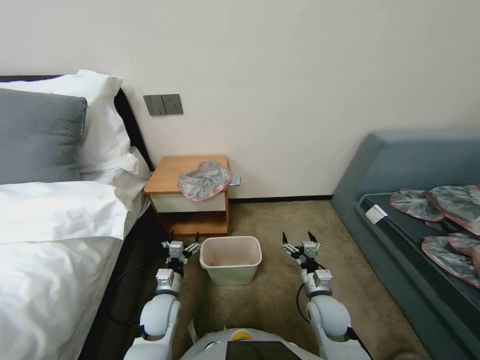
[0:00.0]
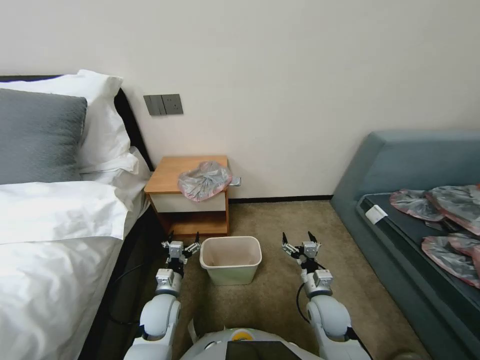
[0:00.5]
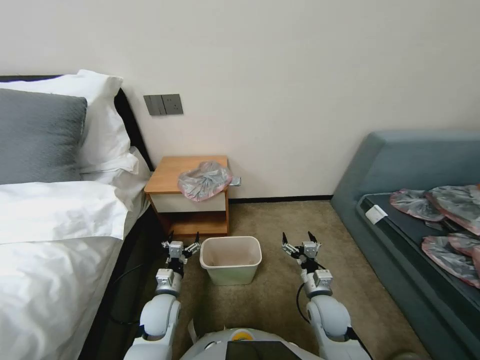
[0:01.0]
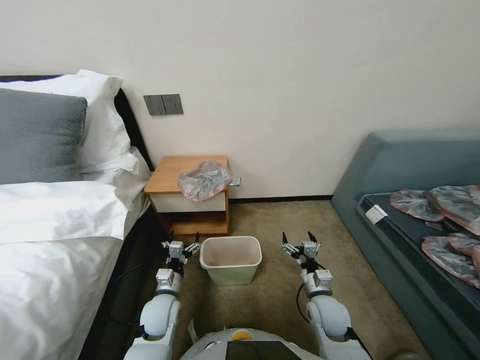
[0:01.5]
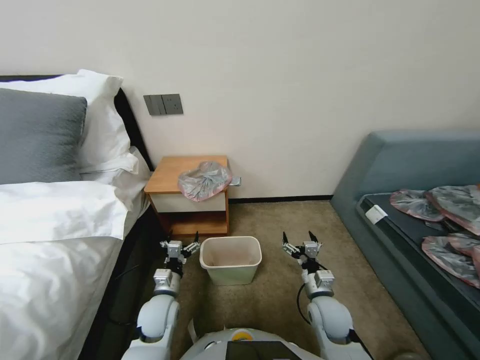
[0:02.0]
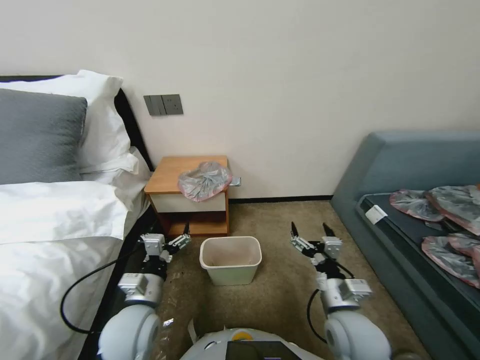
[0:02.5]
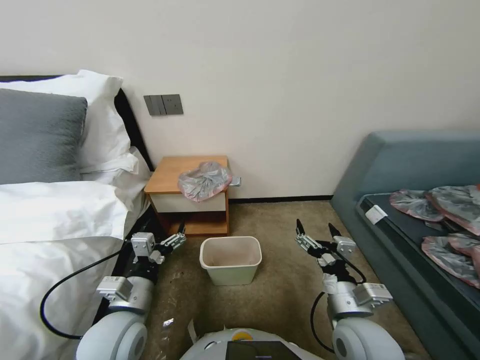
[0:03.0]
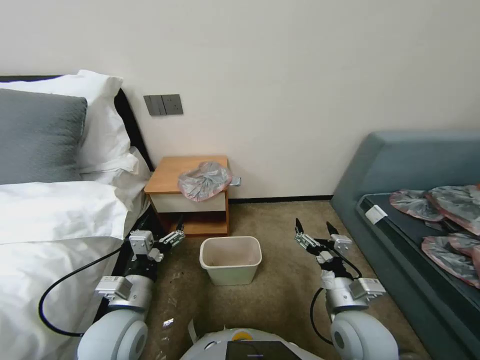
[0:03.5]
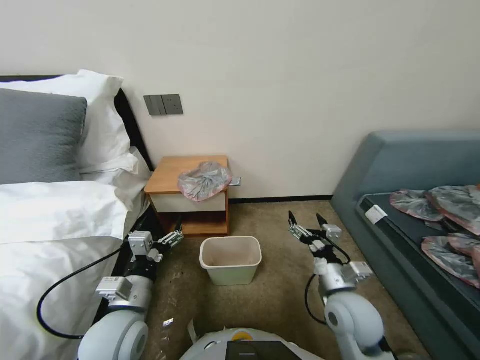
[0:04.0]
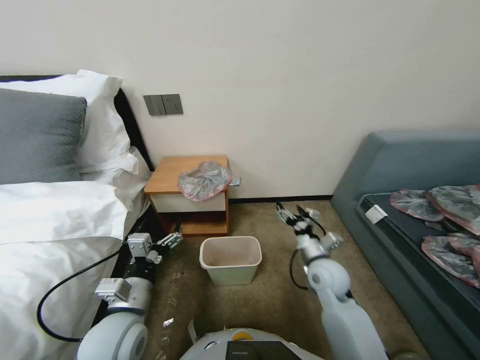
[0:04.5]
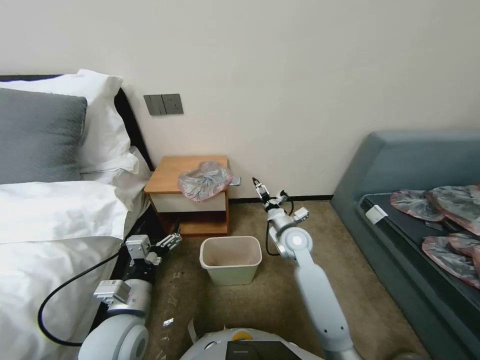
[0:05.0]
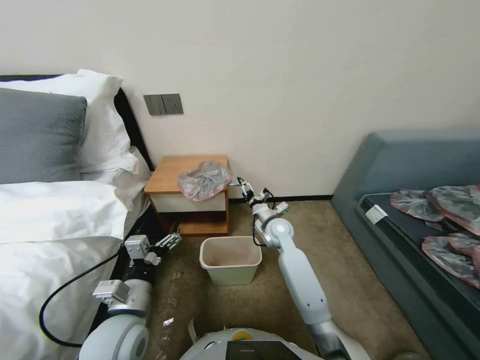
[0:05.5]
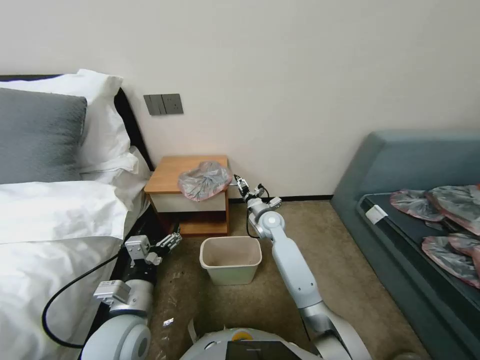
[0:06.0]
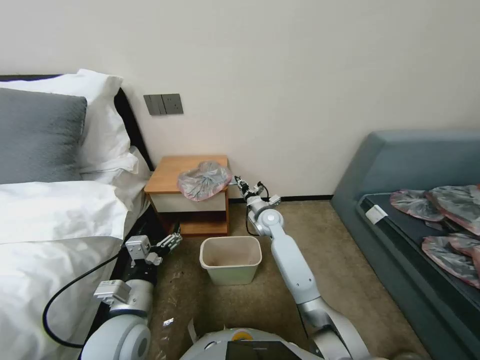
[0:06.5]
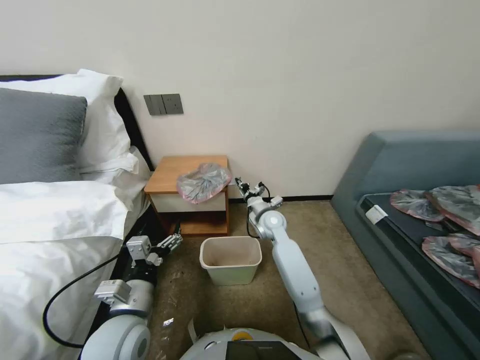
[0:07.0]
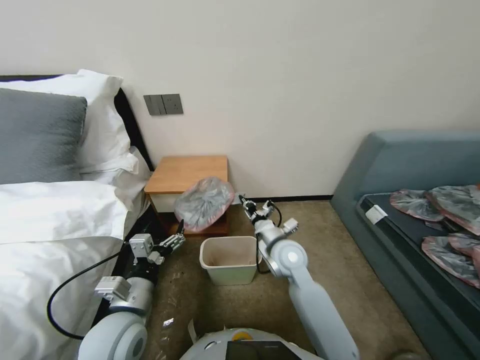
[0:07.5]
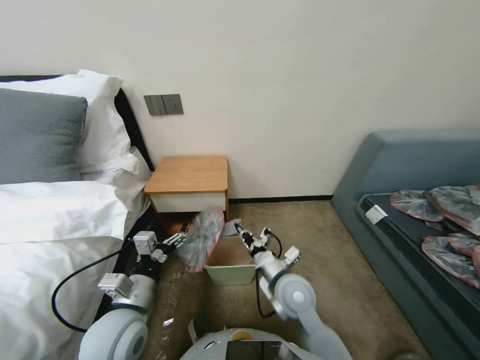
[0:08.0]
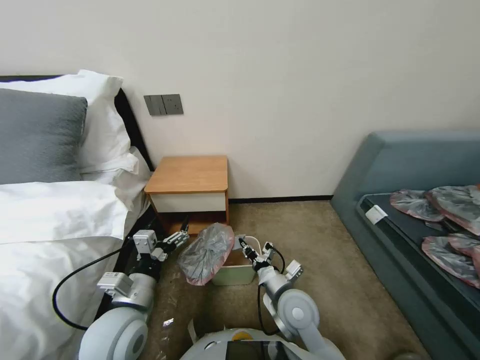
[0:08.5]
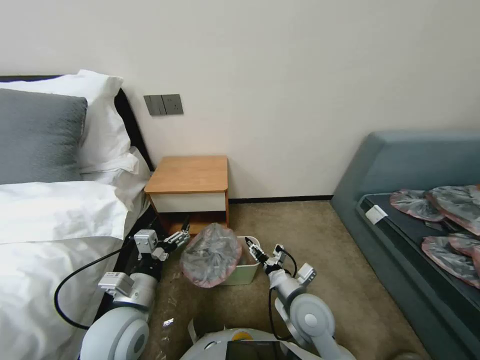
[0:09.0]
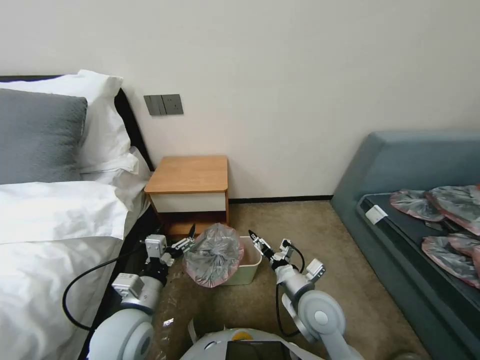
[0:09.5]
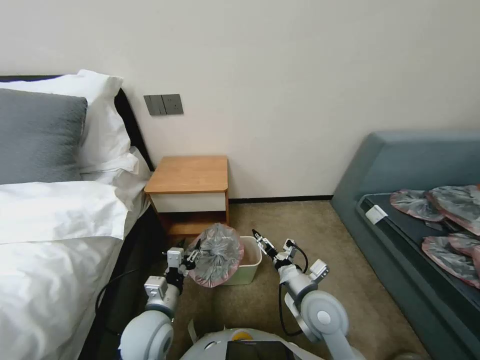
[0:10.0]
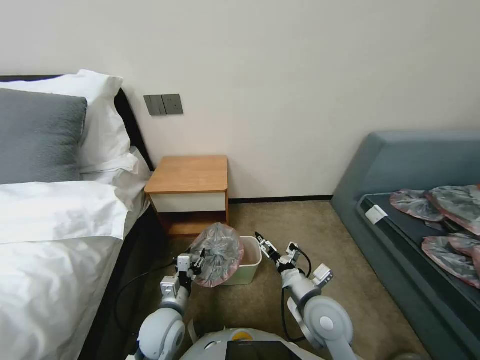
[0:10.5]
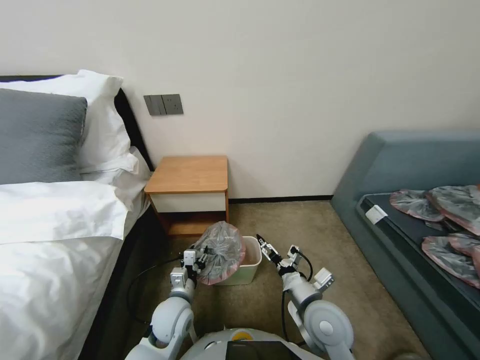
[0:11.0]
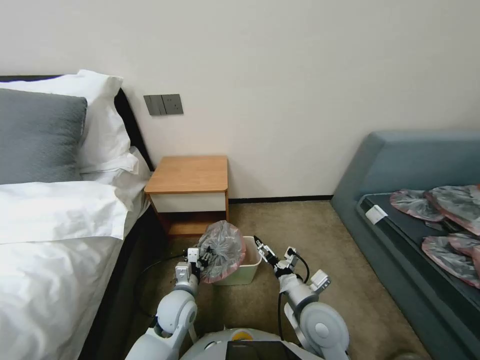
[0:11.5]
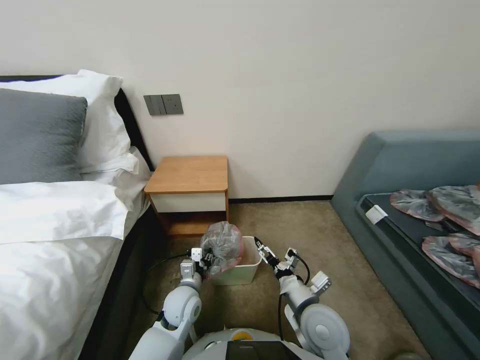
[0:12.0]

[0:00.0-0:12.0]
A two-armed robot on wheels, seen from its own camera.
Task of the whole recording: Pick up the garbage bag from the table and place it over the trash can.
0:02.0 to 0:04.0: The left gripper moves upward and backward, roughly 15 cm. Meanwhile the right gripper heads upward, covering approximately 10 cm.
0:04.0 to 0:06.0: The right gripper heads forward and to the left, covering about 30 cm.
0:06.0 to 0:08.0: The right gripper shifts some 20 cm backward, and closes.
0:08.0 to 0:10.0: The left gripper moves downward, about 5 cm, and closes up. Meanwhile the right gripper is displaced to the right by about 5 cm, and opens up.
0:10.0 to 0:12.0: The left gripper goes approximately 10 cm downward and forward.

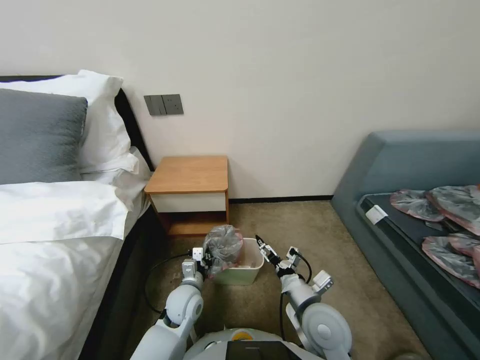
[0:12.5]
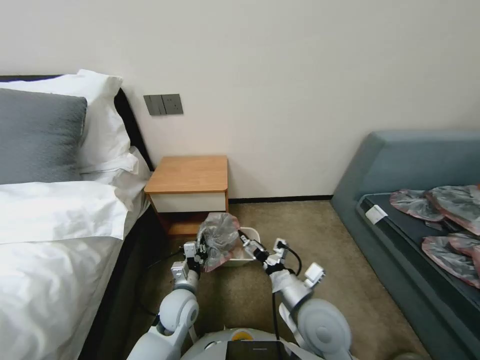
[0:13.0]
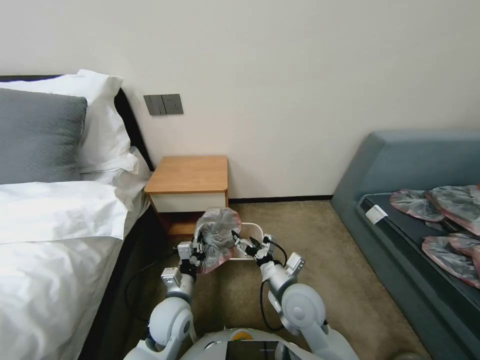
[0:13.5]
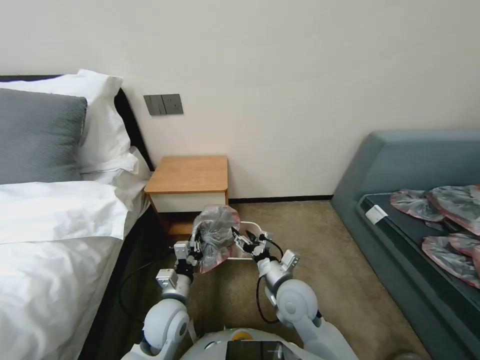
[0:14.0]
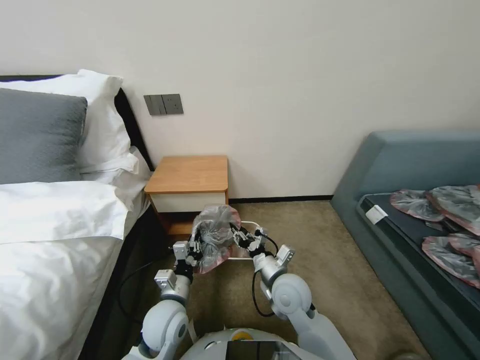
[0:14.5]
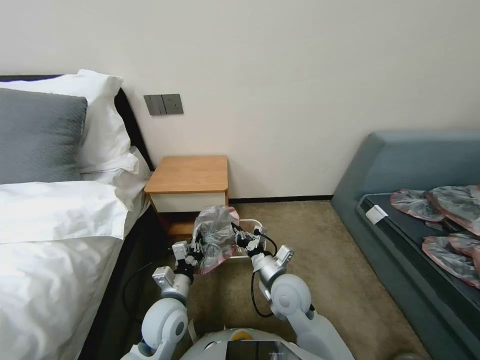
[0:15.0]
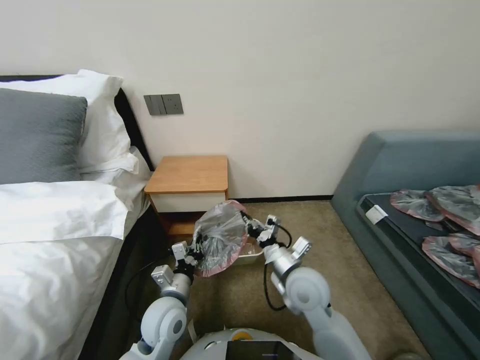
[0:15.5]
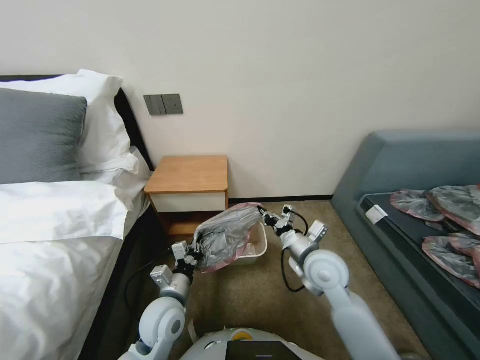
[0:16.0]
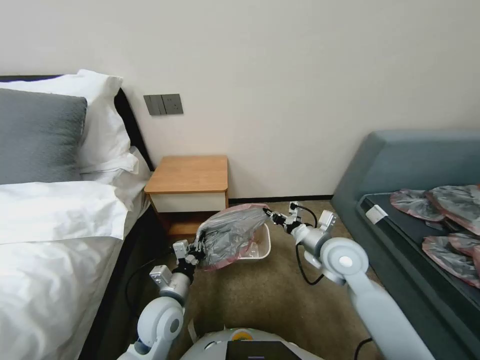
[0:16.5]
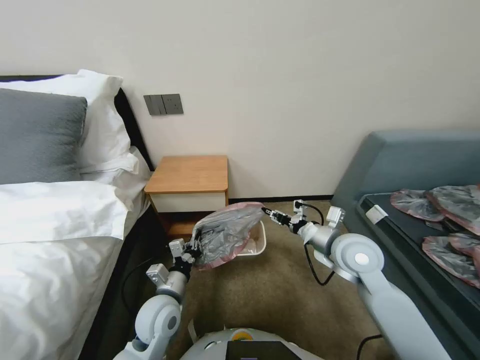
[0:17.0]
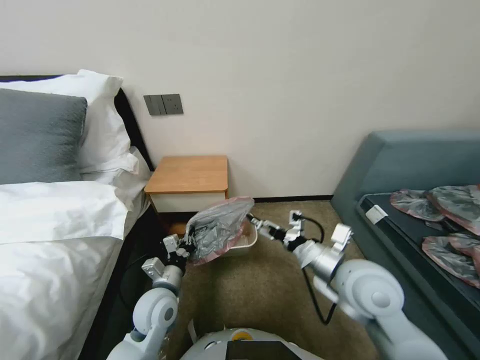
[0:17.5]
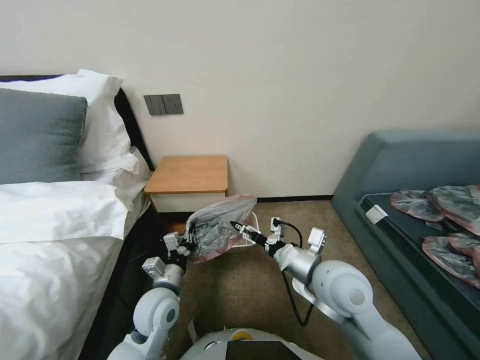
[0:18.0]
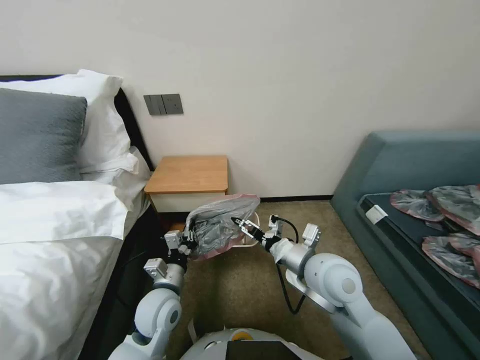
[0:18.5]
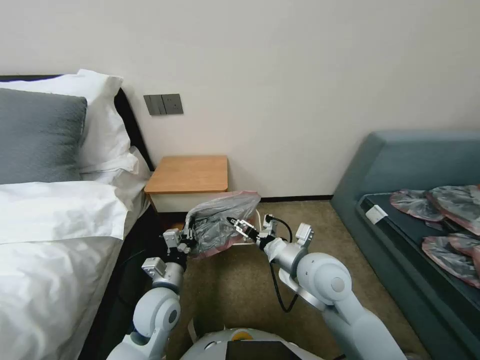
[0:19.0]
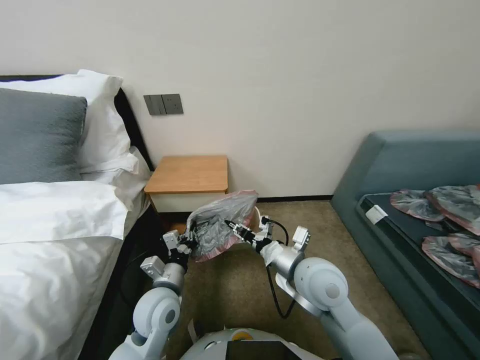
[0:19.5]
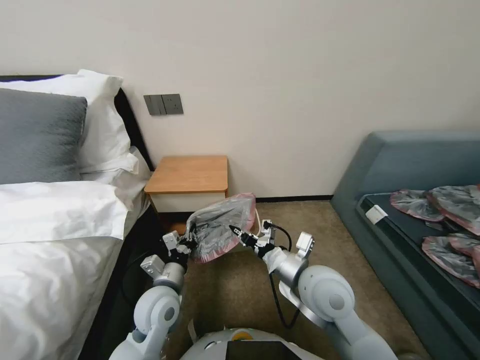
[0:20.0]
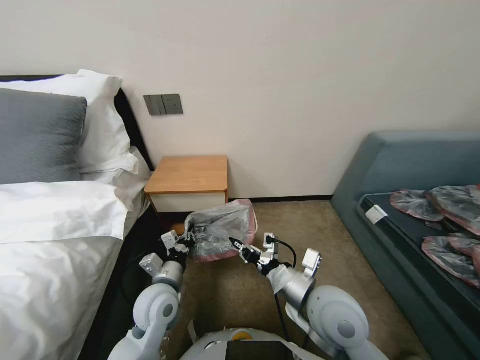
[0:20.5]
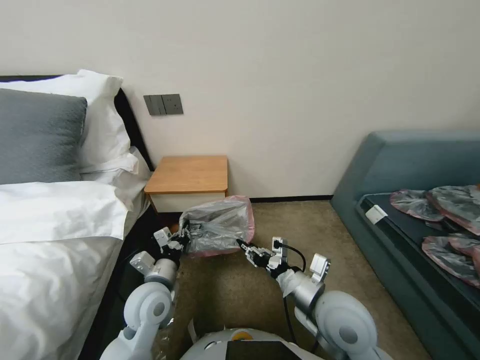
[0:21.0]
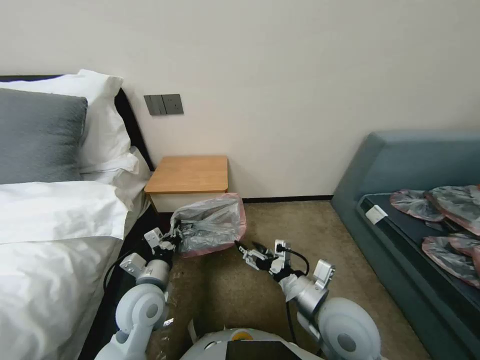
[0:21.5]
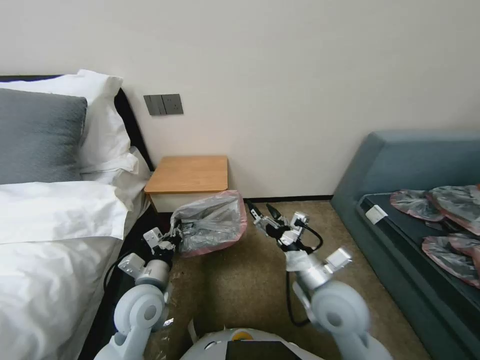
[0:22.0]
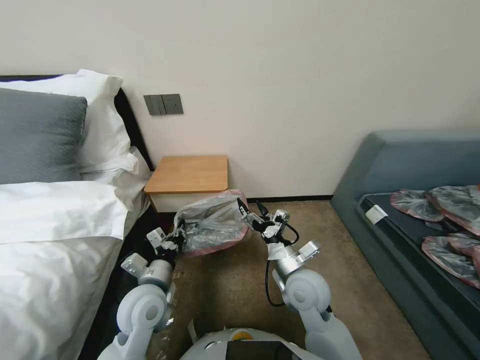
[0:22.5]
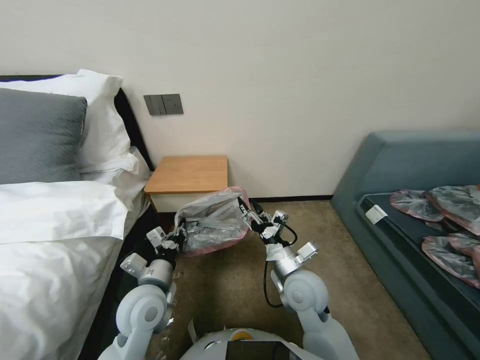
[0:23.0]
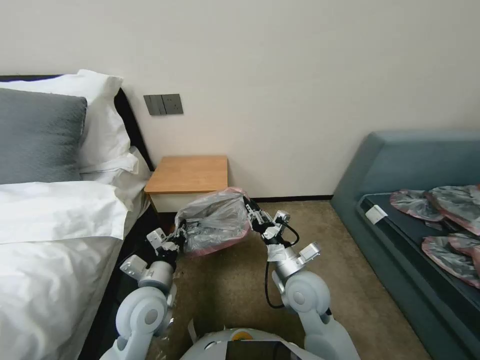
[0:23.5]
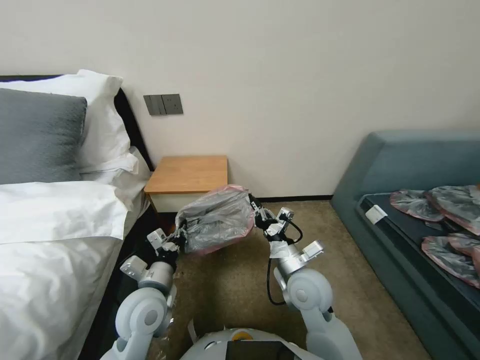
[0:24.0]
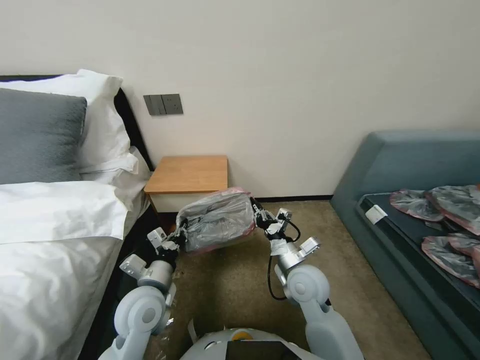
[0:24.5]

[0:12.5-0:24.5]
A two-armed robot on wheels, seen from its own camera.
Task of the whole recording: Pick up the garbage bag from the table and place it over the trash can.
0:12.5 to 0:14.5: The right gripper heads forward and to the left, covering some 10 cm, and closes its fingers, while the left gripper goes some 5 cm upward and backward.
0:14.5 to 0:16.5: The right gripper shifts approximately 15 cm to the right, upward and forward, and closes its fingers.
0:16.5 to 0:18.5: The right gripper is displaced to the left and backward by approximately 10 cm, and opens up.
0:18.5 to 0:20.5: The right gripper moves backward, some 5 cm, and closes its fingers.
0:20.5 to 0:22.5: The right gripper heads downward and forward, covering roughly 10 cm, and opens.
0:22.5 to 0:24.5: The right gripper closes up.

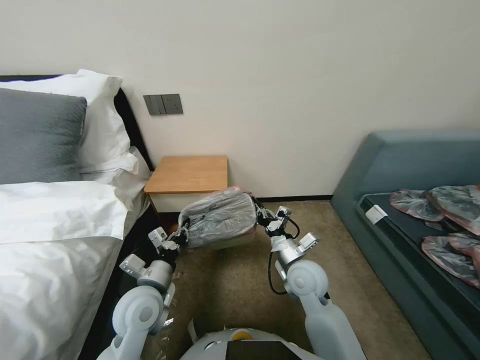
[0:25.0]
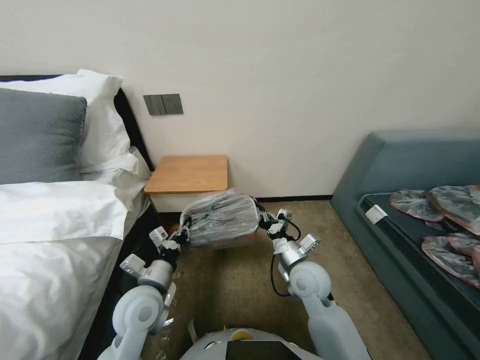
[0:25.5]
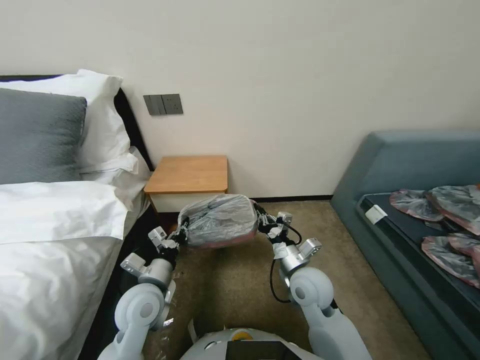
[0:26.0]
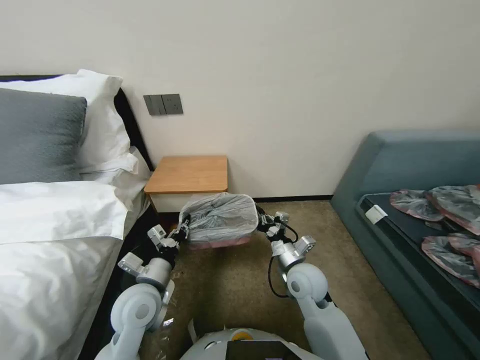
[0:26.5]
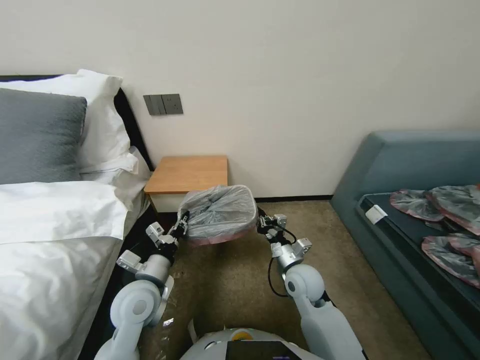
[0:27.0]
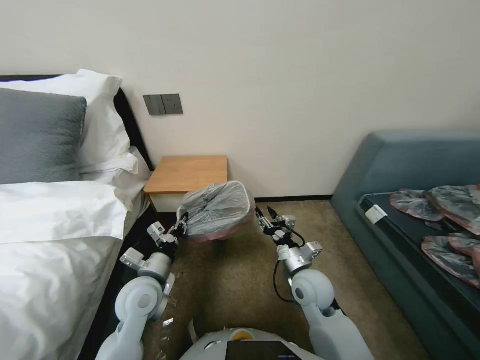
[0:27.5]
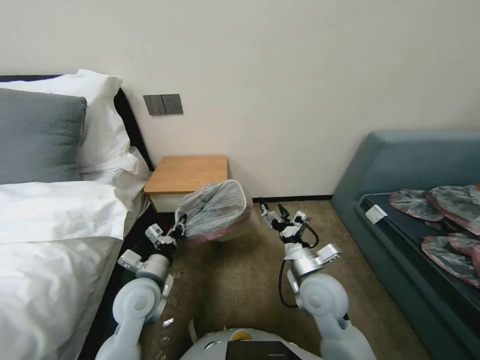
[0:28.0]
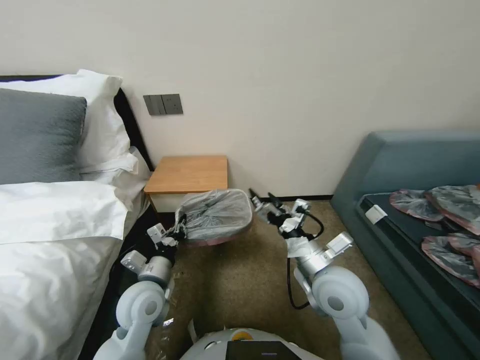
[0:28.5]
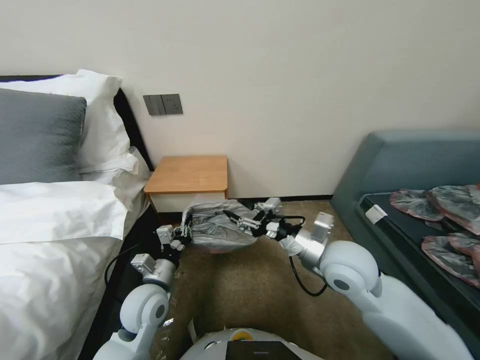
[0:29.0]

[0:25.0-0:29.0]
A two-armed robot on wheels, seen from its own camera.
Task of the whole recording: Pick up the garbage bag from the table and place it over the trash can.
0:25.0 to 0:27.0: The grippers move only a little.
0:27.0 to 0:29.0: The right gripper goes roughly 15 cm upward, and opens its fingers.
